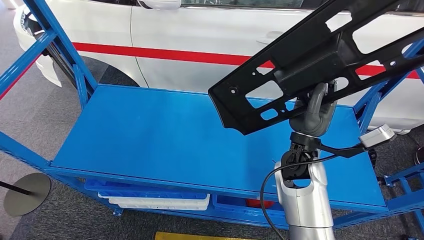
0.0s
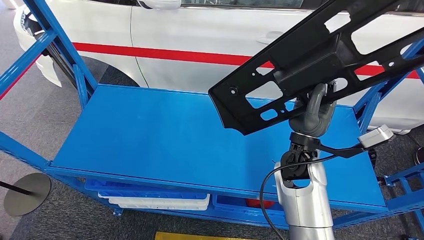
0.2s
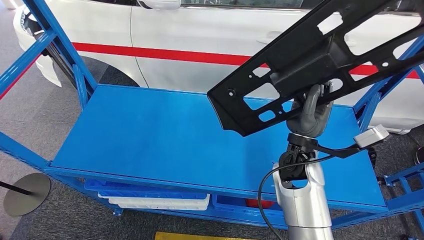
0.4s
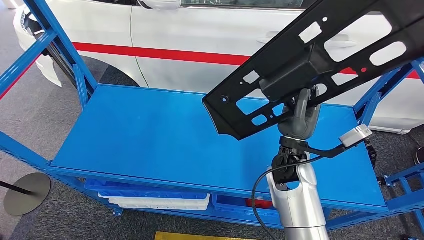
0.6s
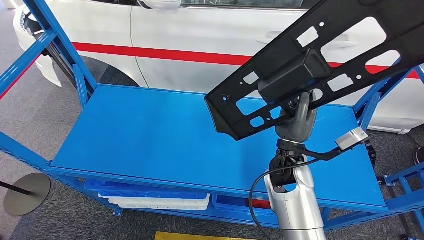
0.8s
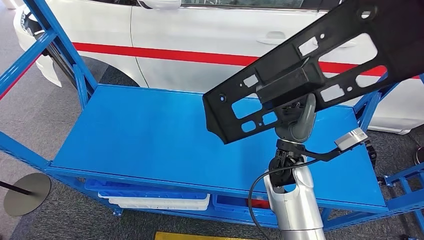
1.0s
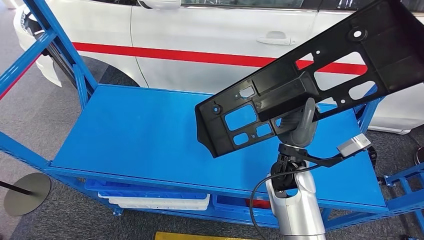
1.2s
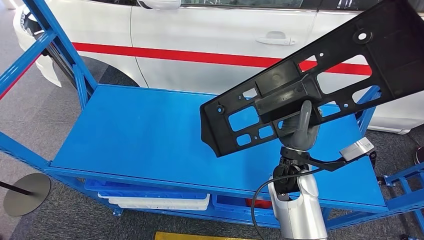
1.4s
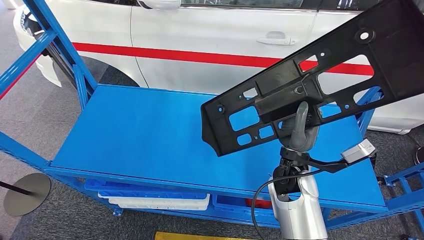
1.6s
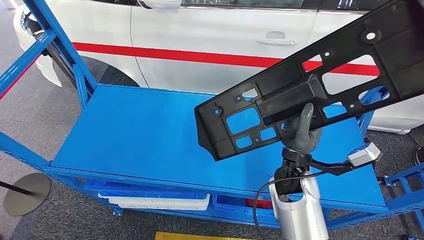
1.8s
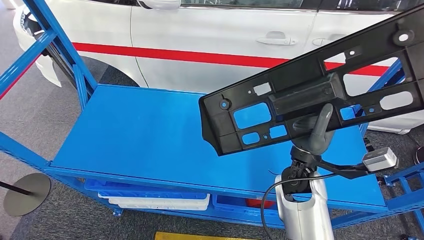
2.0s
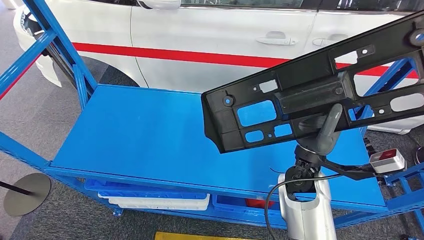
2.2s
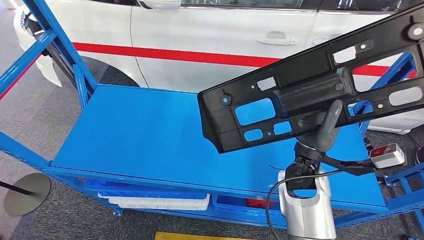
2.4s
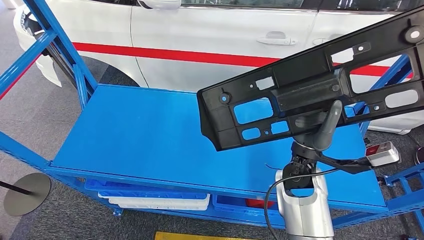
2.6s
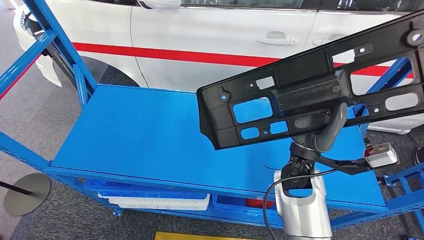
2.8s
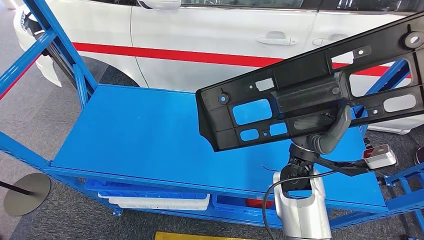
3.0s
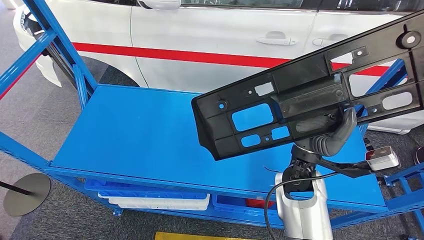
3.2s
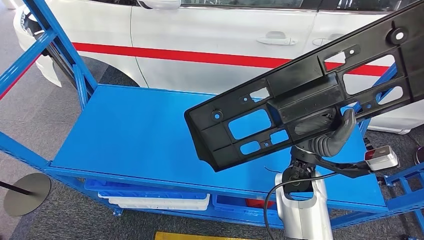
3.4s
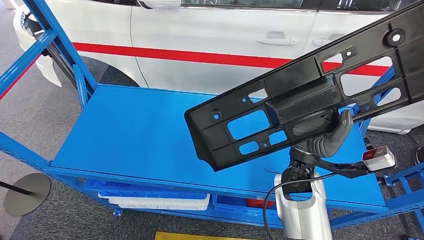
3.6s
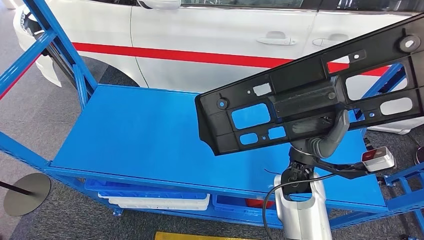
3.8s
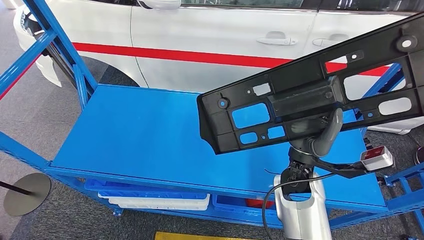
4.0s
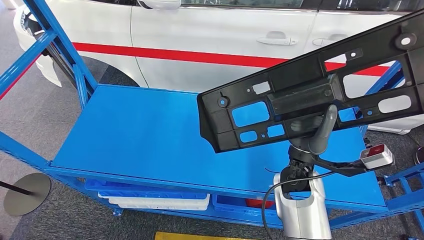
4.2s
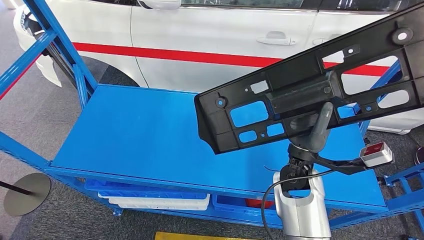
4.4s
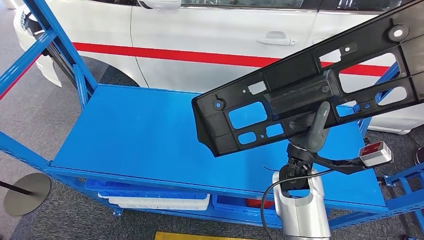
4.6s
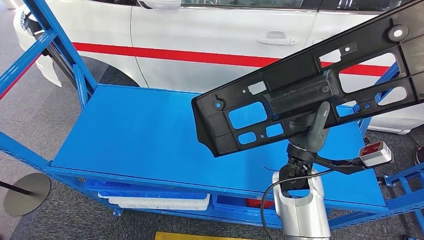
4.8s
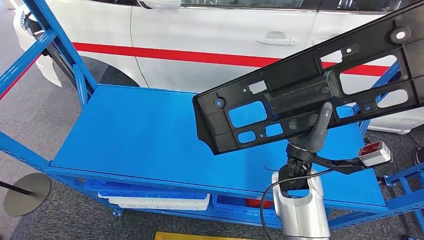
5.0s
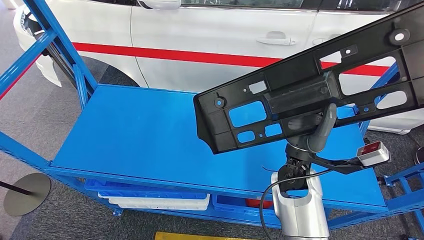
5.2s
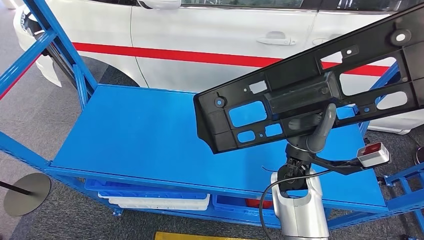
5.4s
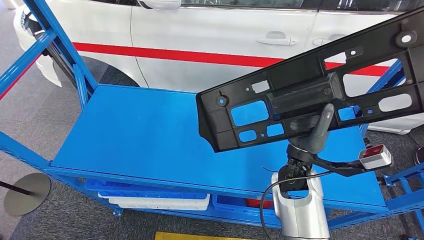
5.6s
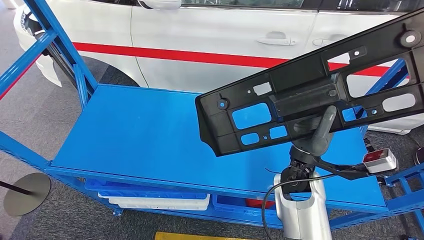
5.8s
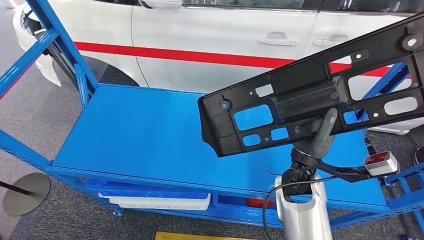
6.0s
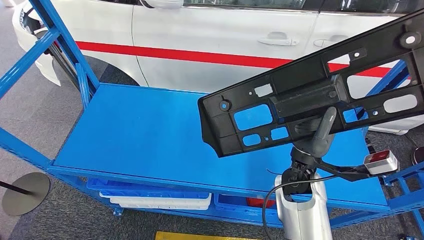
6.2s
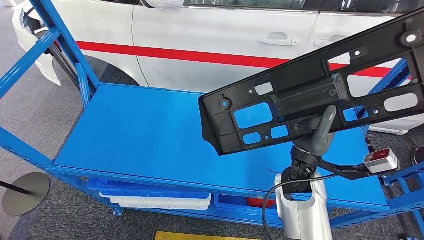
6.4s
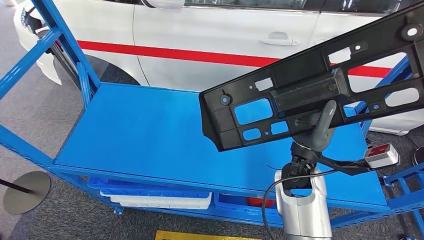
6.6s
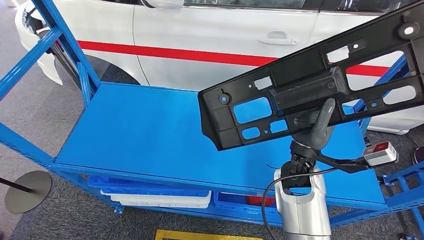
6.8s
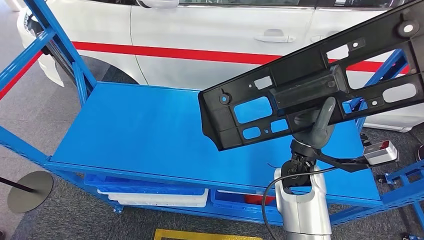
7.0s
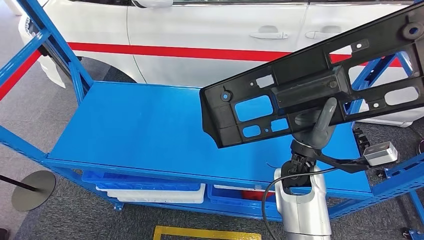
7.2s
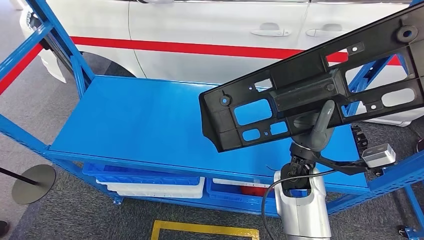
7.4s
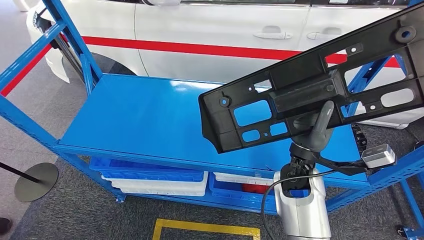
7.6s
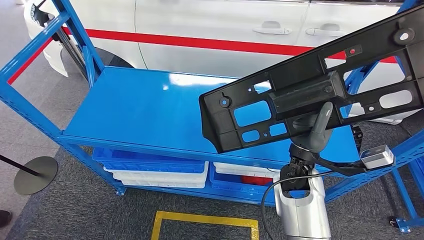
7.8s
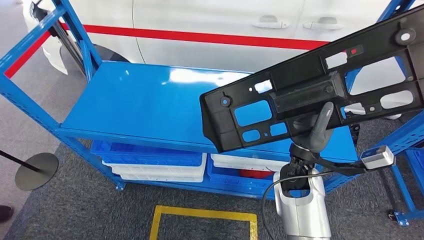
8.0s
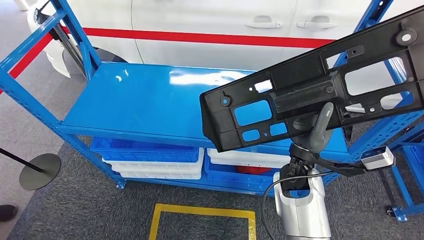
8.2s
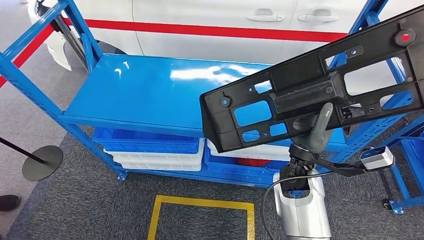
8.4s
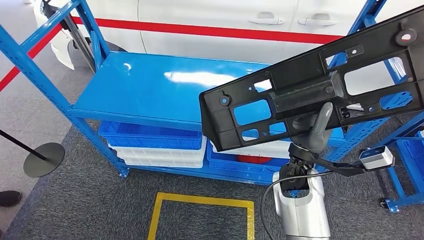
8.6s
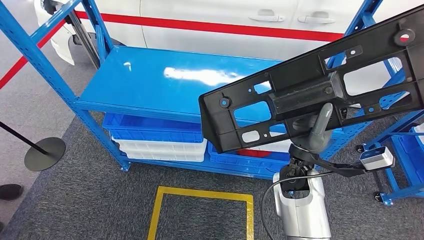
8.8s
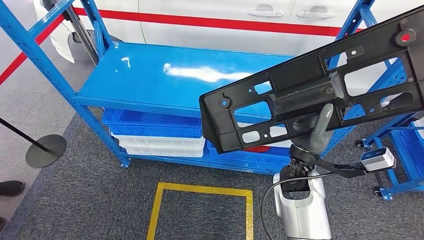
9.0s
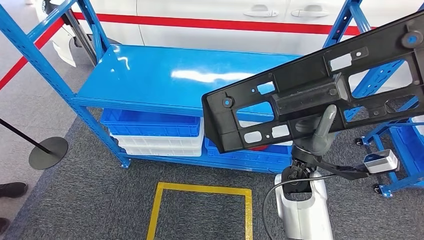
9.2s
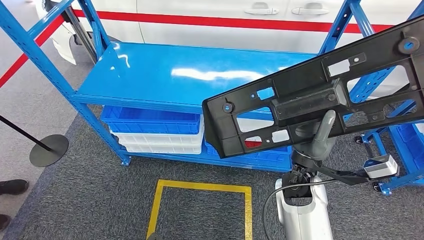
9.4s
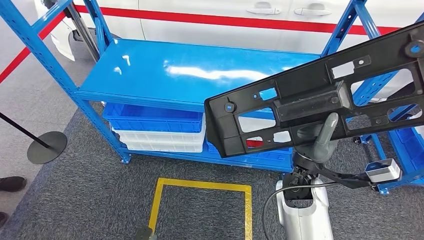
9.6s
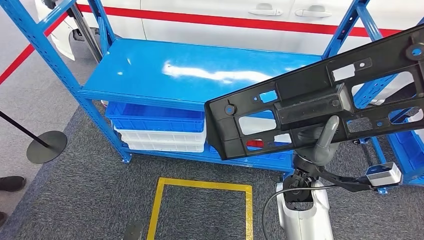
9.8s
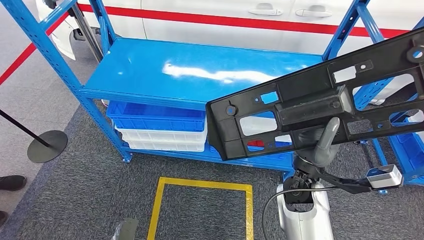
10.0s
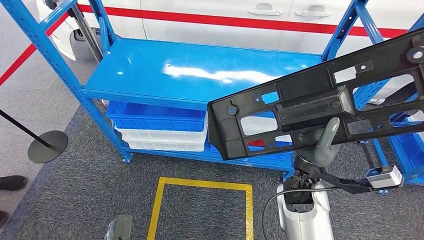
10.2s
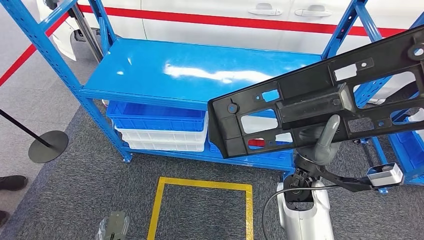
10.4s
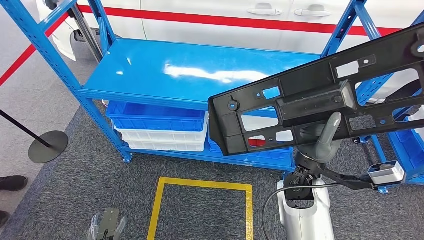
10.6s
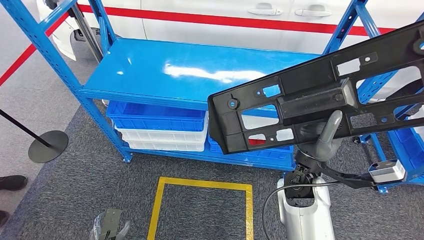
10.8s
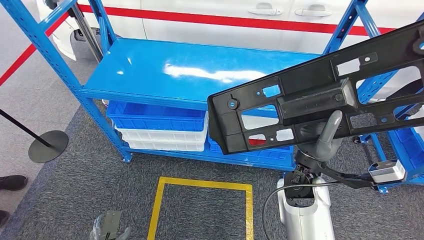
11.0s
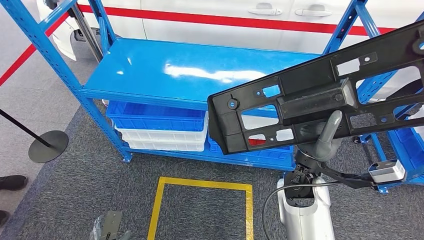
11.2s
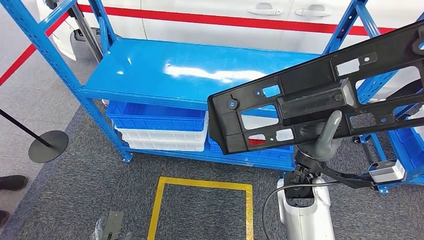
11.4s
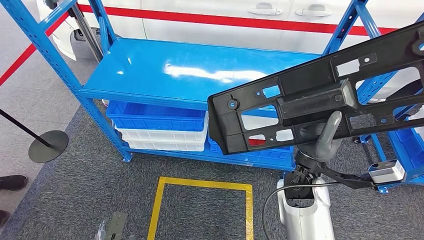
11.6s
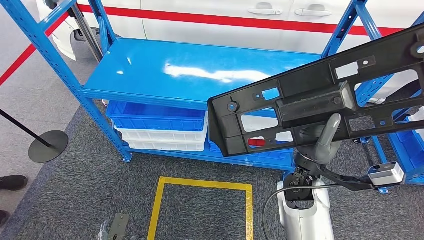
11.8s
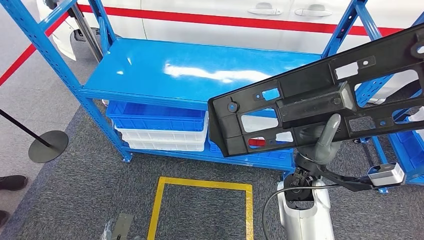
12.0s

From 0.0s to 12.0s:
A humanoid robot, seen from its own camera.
From 3.0s to 6.0s: Neither hand changes place.
From 10.4s to 12.0s: The hands move only a little.

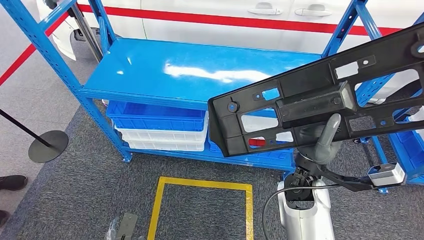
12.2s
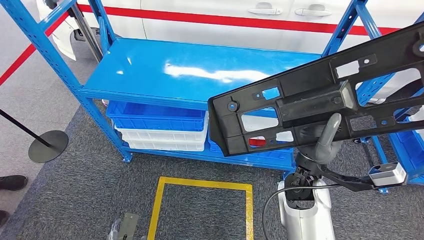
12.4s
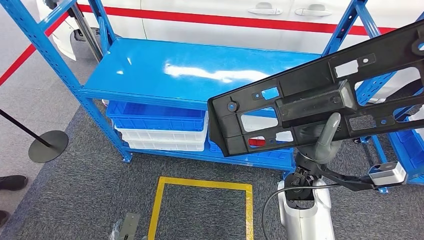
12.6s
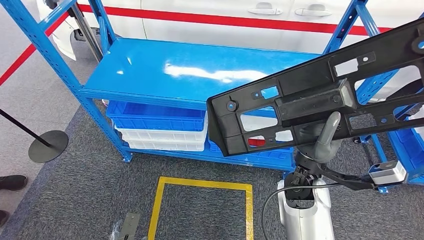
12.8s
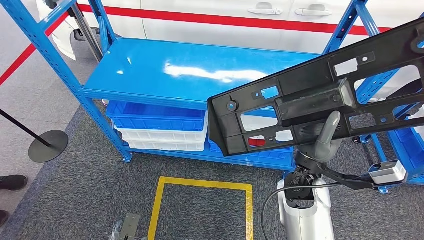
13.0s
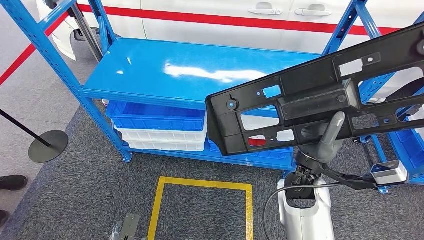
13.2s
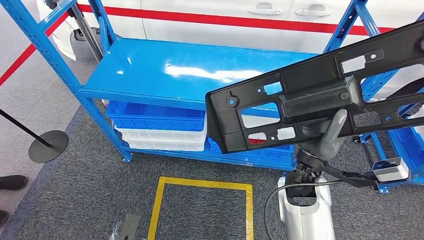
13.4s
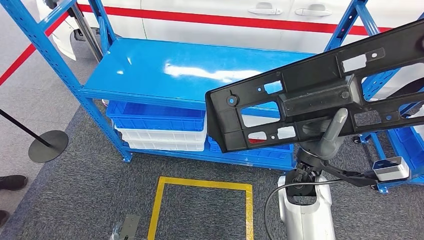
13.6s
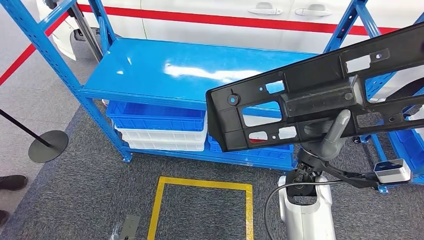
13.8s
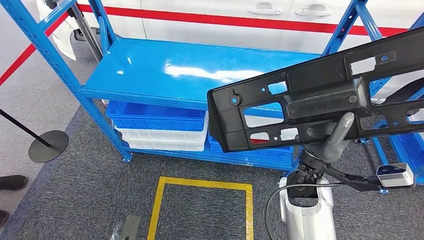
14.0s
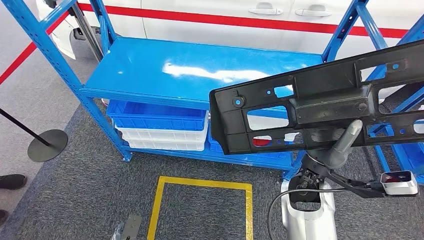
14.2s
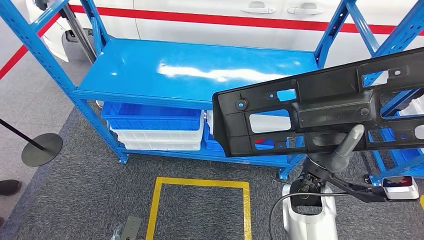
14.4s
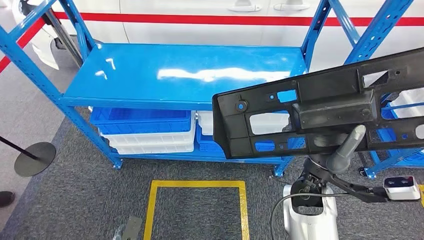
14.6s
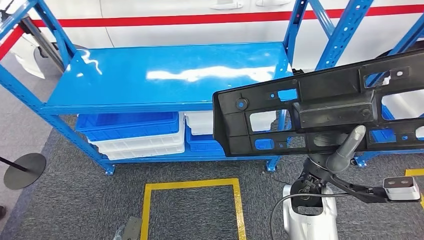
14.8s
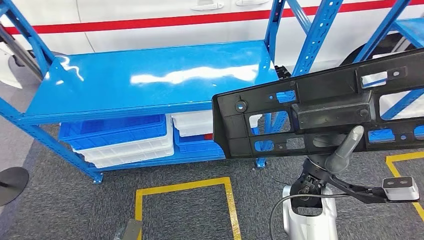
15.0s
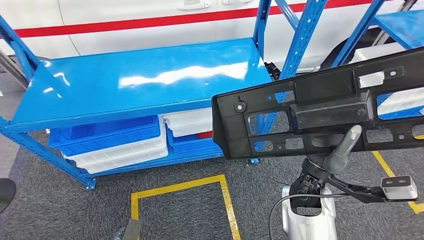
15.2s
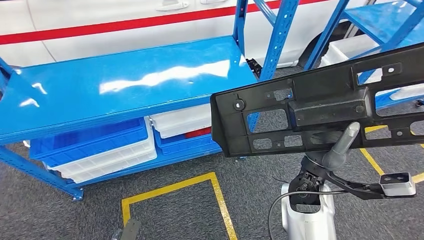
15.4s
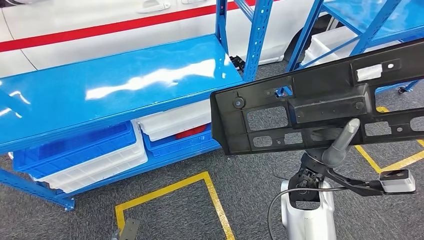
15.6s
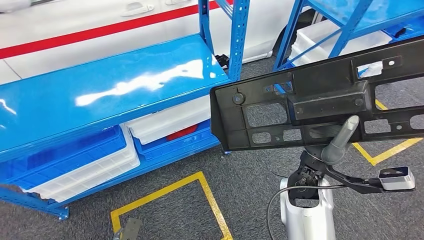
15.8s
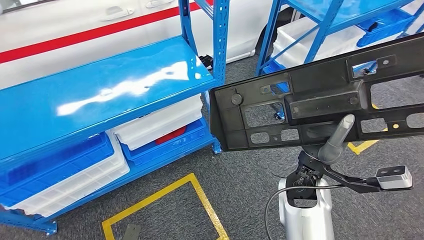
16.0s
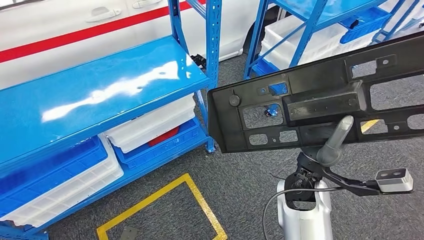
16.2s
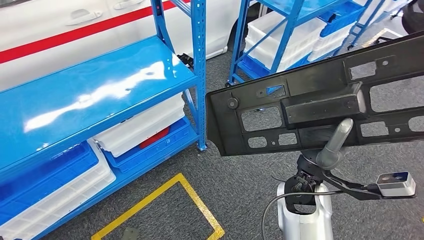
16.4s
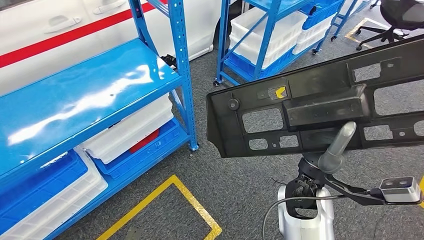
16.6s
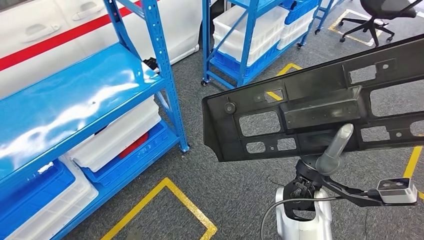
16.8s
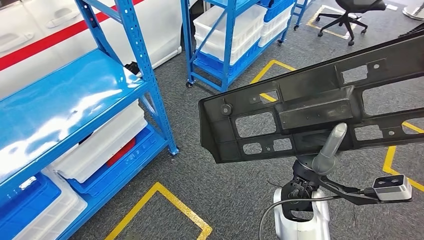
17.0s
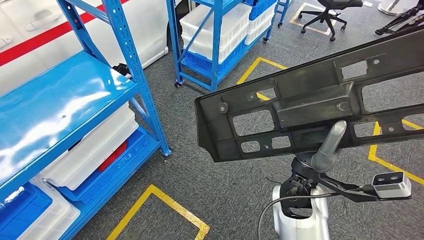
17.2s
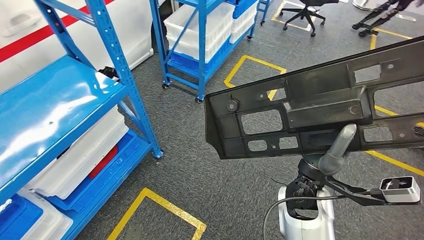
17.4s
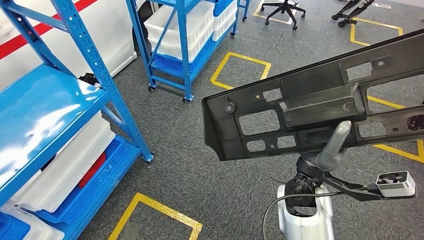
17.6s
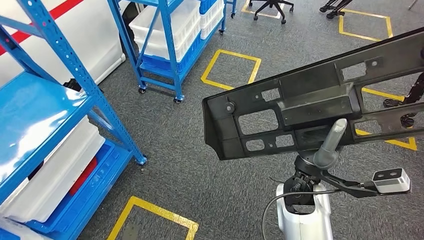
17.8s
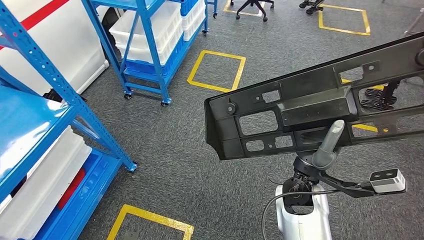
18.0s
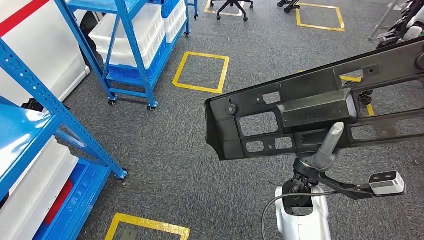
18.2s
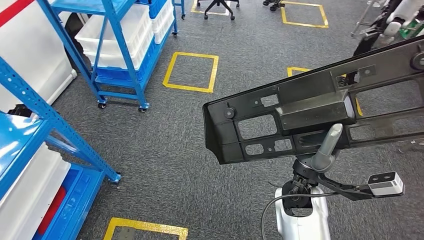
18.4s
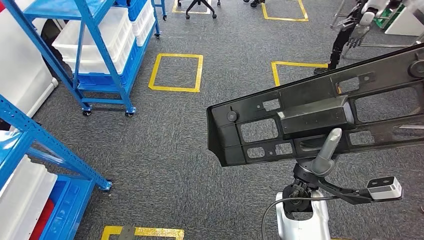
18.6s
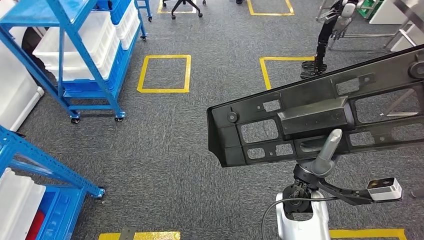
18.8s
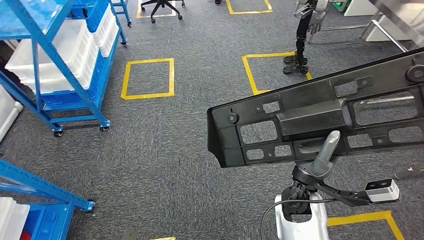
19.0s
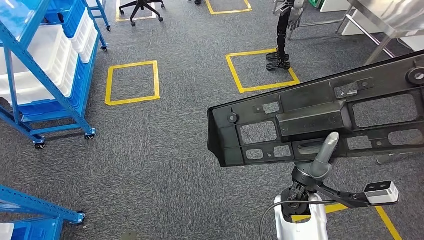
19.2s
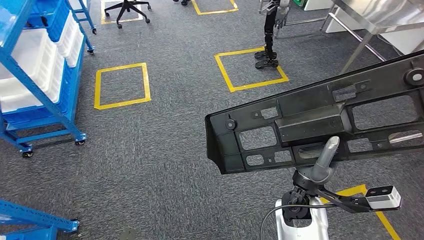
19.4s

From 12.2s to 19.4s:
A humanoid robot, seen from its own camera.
From 12.2s to 13.6s: The hands make only small movements.
